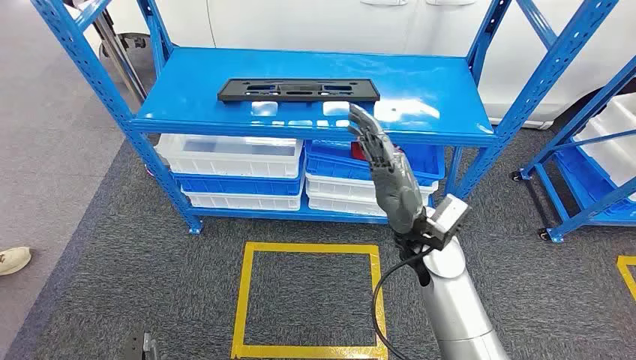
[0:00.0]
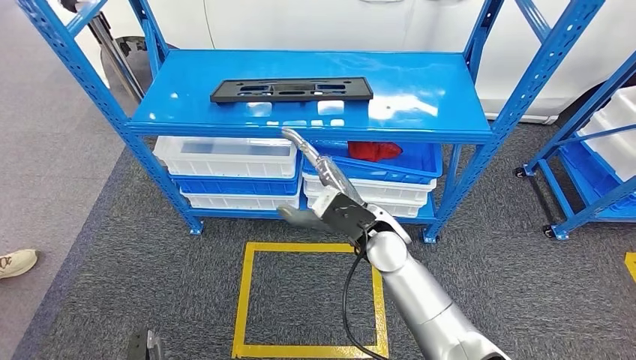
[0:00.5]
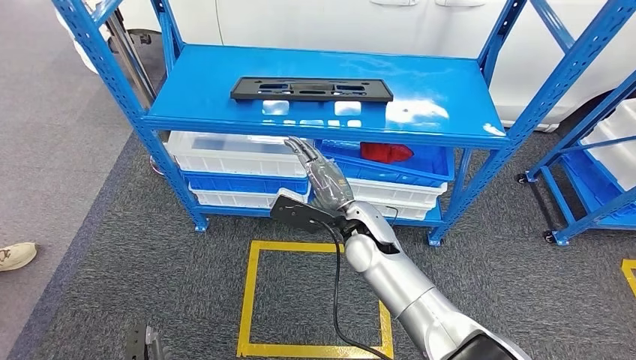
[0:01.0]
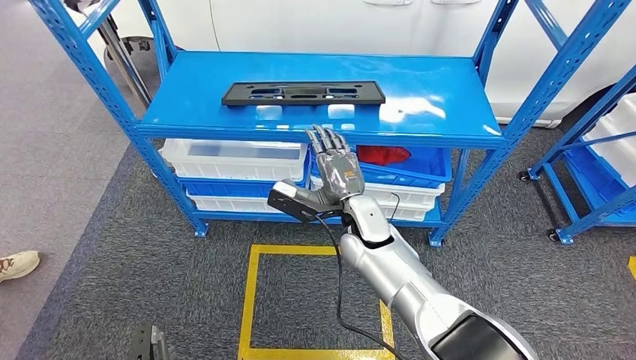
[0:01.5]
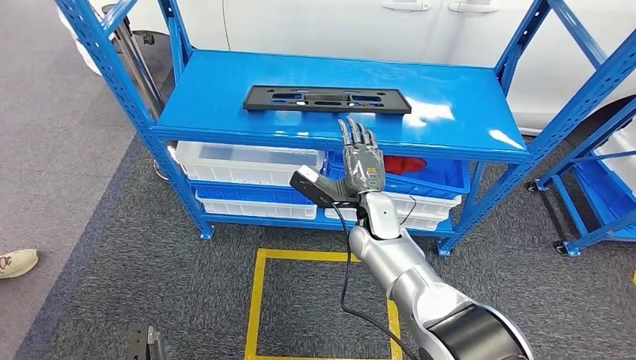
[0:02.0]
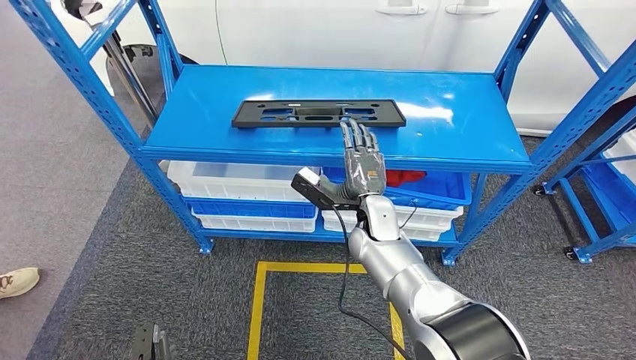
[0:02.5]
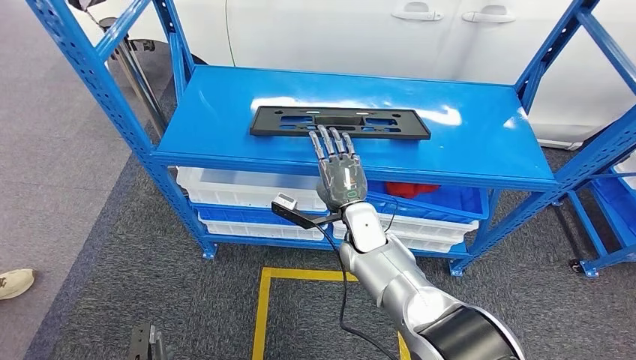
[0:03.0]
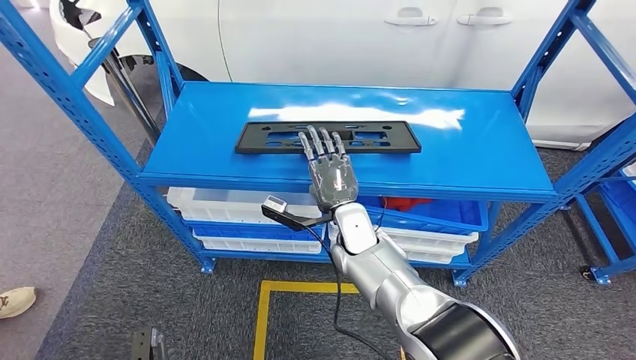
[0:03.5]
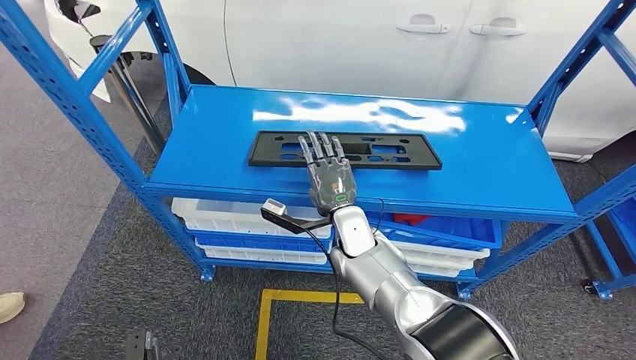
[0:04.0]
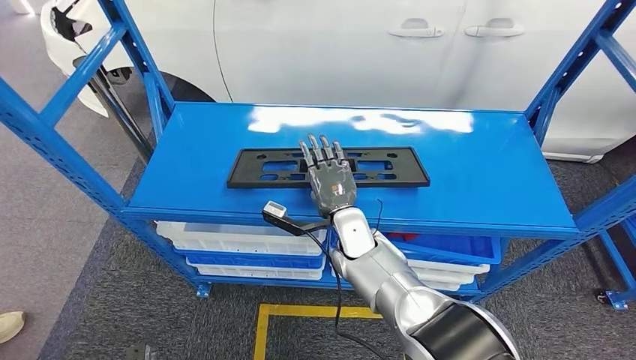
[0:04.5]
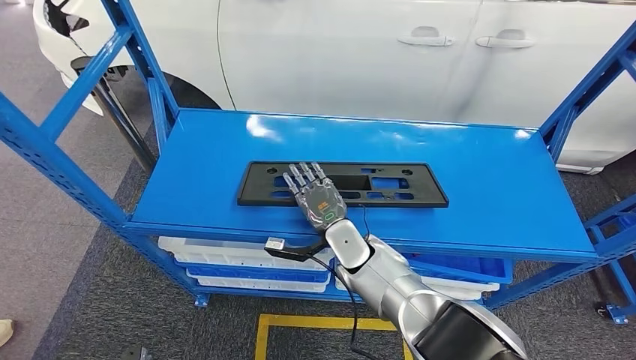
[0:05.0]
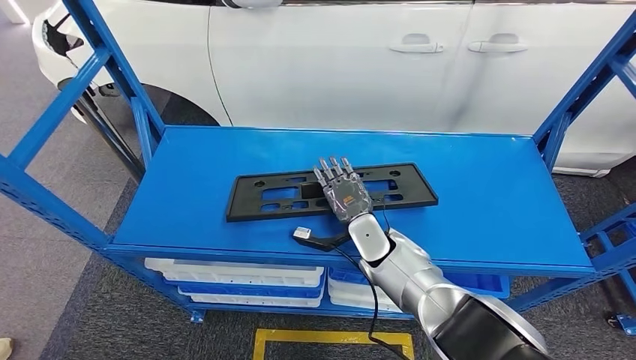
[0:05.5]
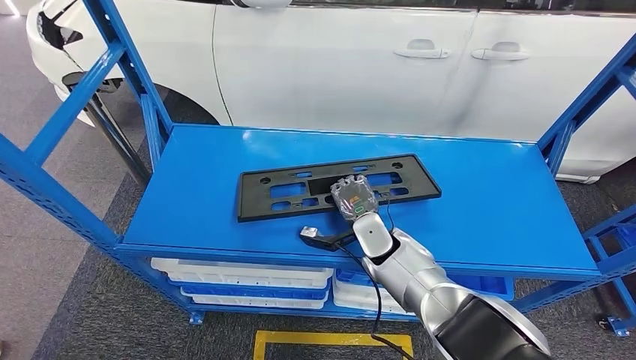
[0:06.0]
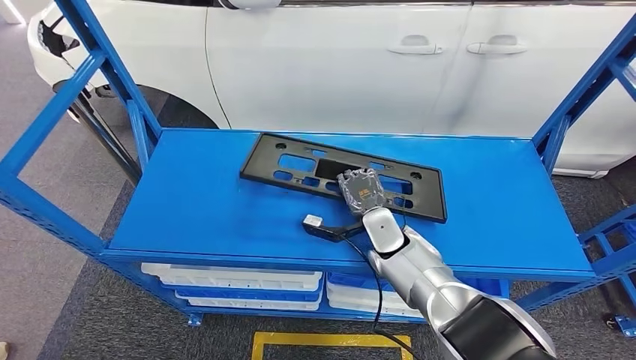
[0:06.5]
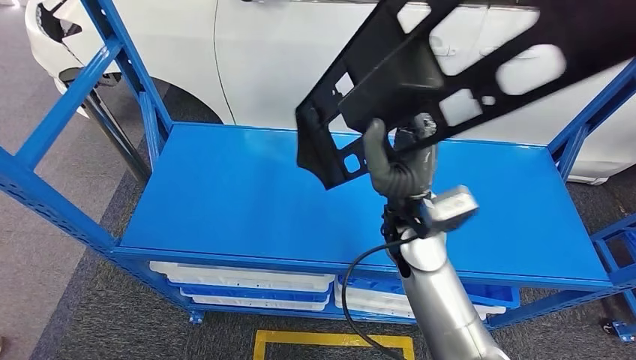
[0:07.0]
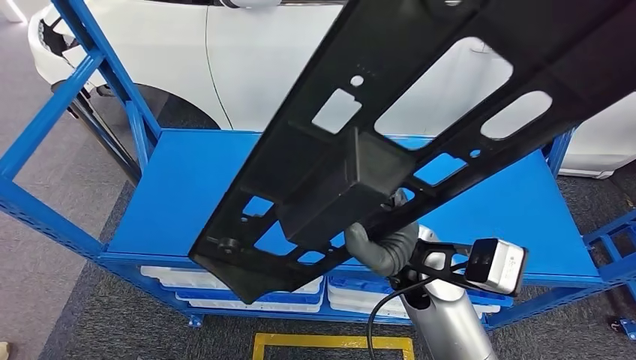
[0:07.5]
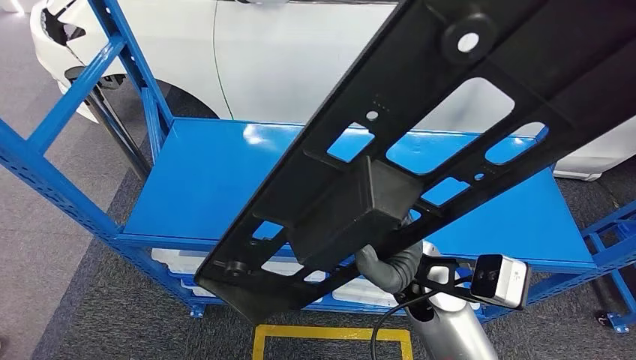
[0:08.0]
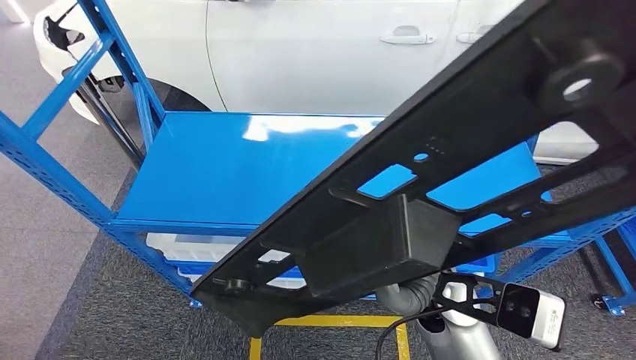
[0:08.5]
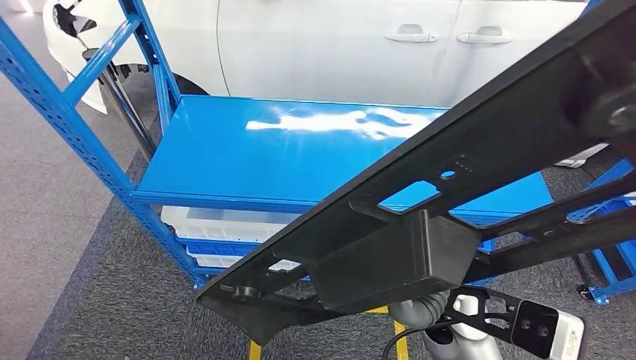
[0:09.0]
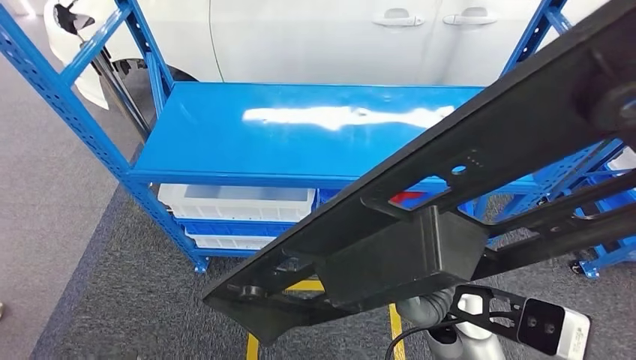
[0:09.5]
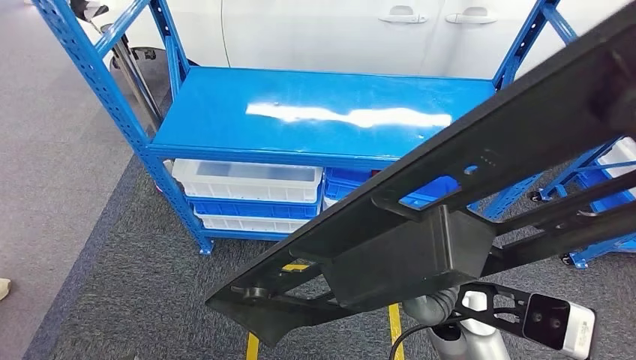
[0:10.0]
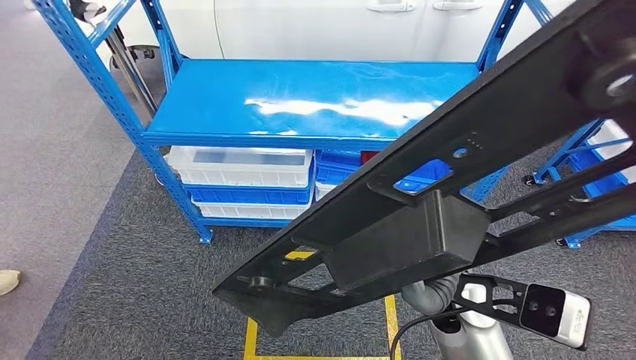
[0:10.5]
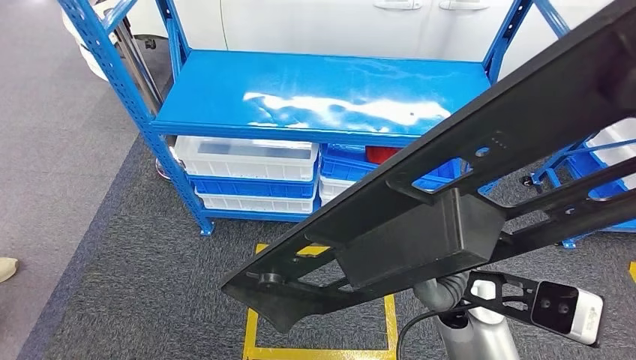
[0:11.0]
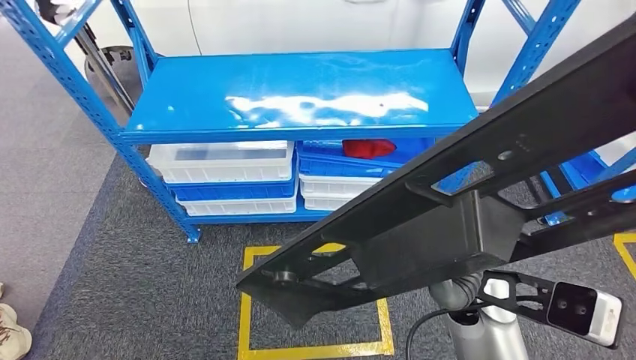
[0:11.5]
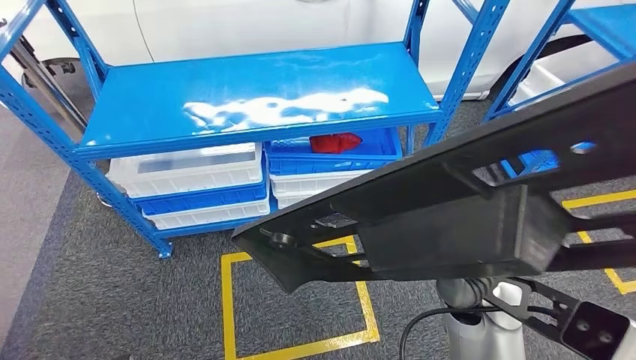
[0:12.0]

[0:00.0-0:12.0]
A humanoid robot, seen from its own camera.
Step, 0:00.0 to 0:07.5: Pick up the large material from the shelf.

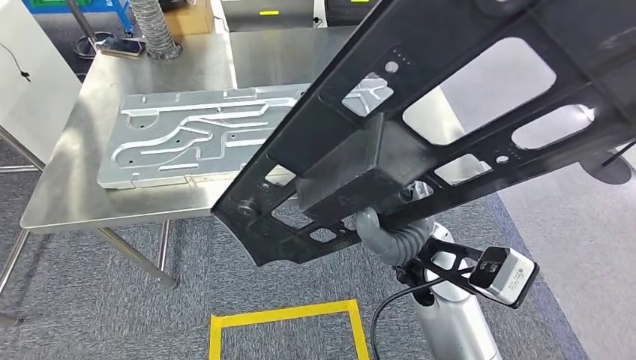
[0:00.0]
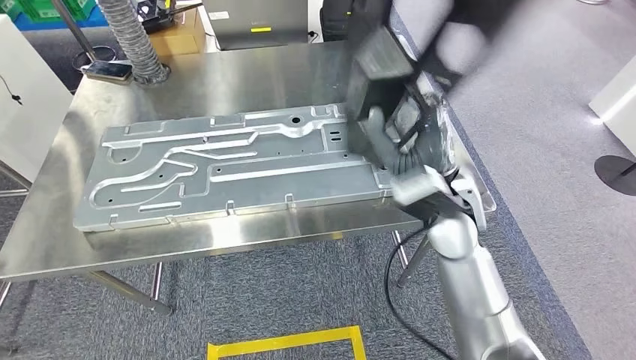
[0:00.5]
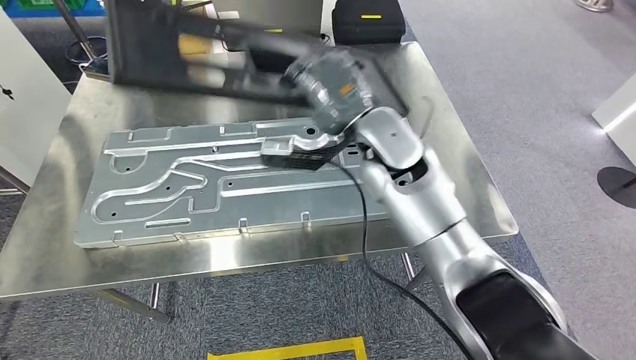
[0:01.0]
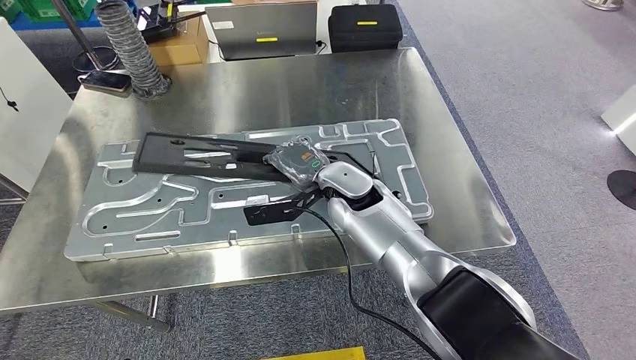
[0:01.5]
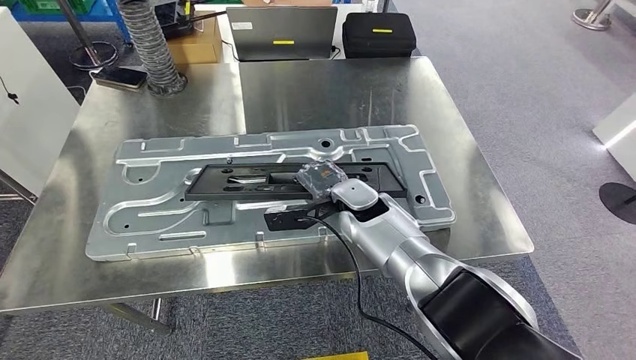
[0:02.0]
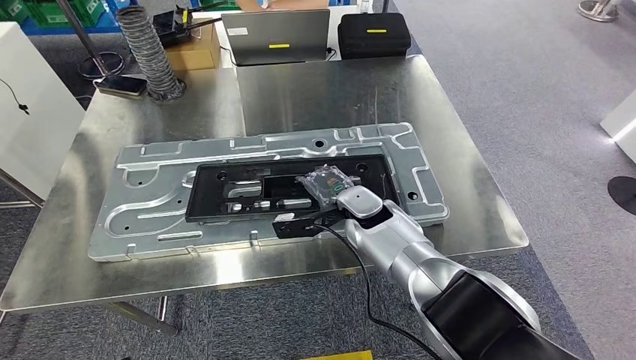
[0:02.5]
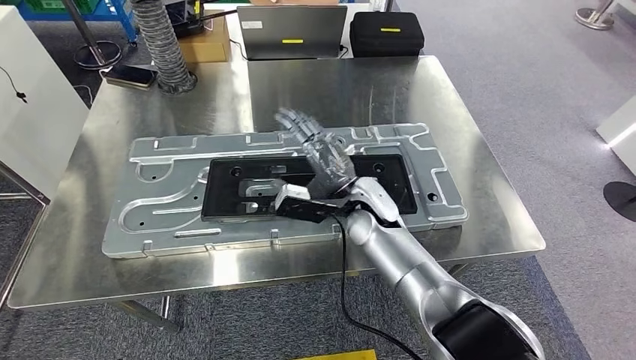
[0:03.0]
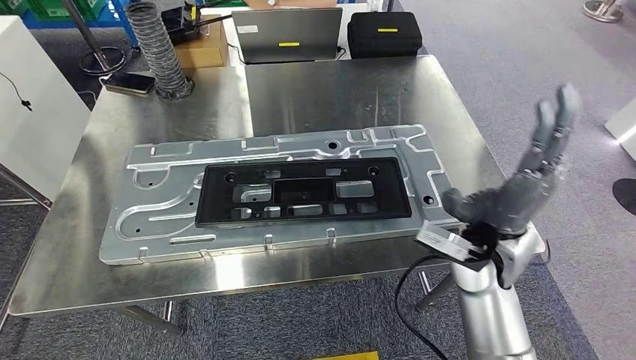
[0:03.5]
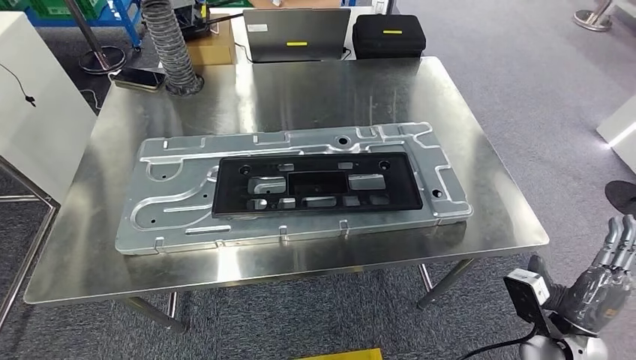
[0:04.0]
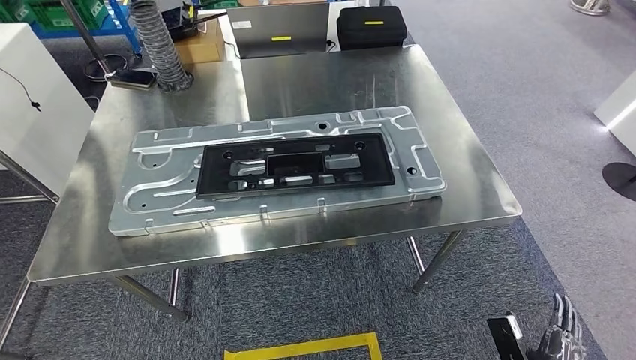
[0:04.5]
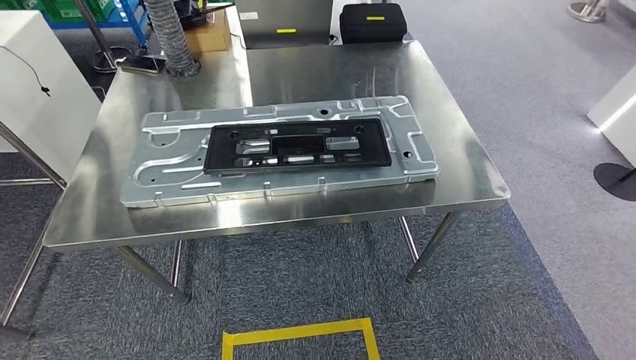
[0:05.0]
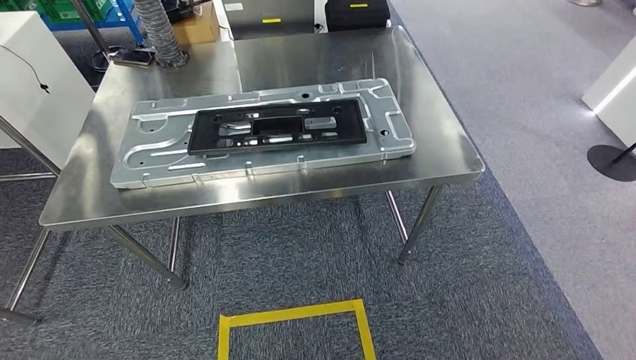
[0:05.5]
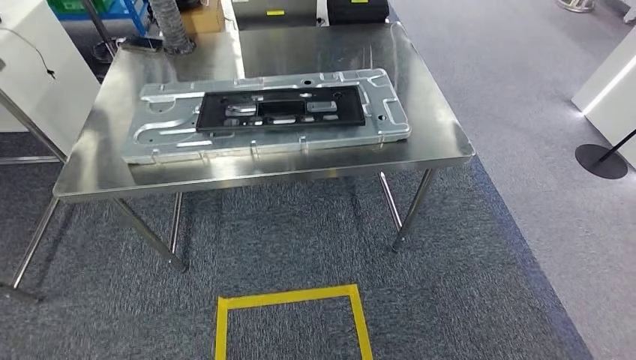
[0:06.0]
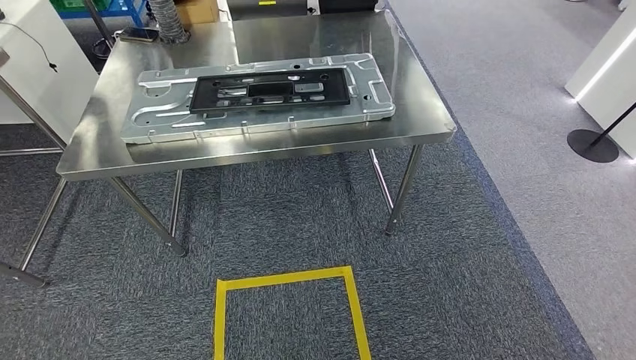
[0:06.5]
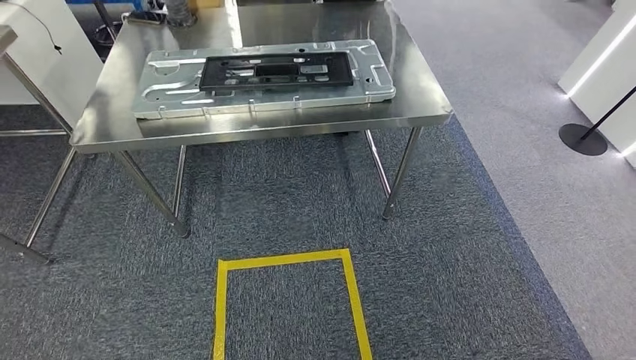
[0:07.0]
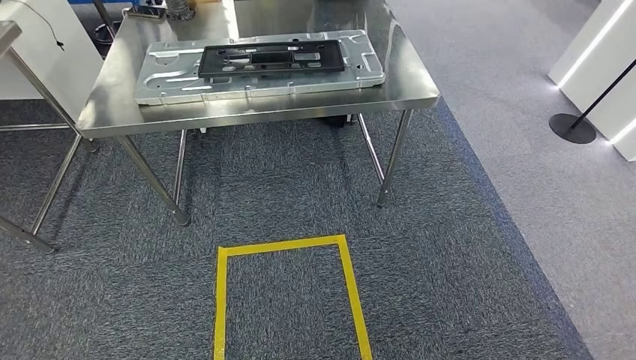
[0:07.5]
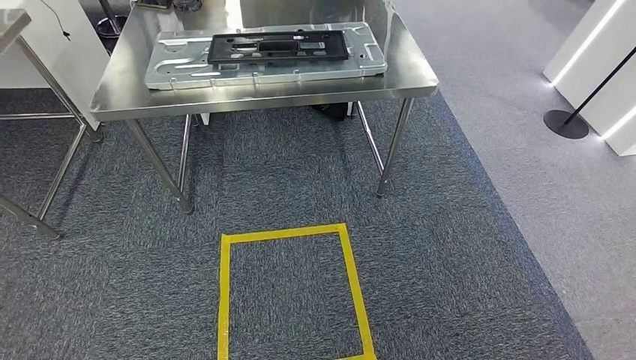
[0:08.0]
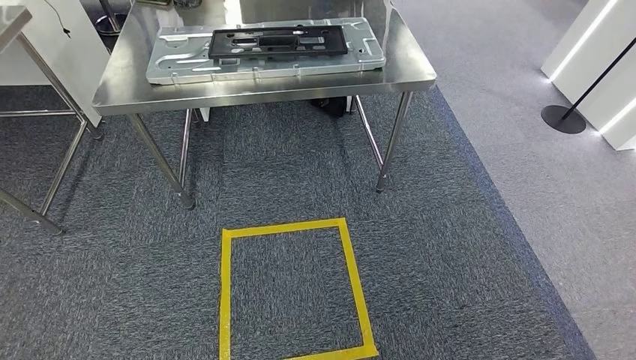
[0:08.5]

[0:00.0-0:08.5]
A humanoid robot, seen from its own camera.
Step, 0:02.0 to 0:04.5: Insert the large material into the corresponding hole on the workbench.
Step, 0:05.0 to 0:08.5: Move to the initial position of the shelf.
